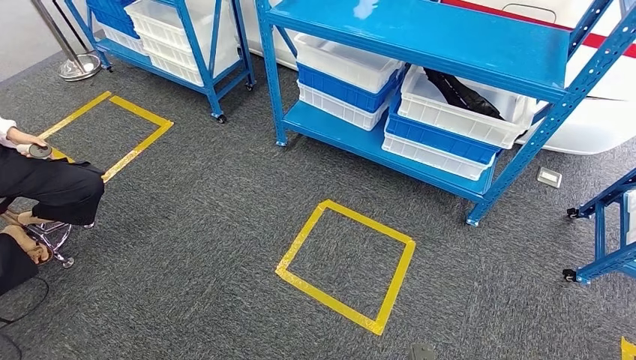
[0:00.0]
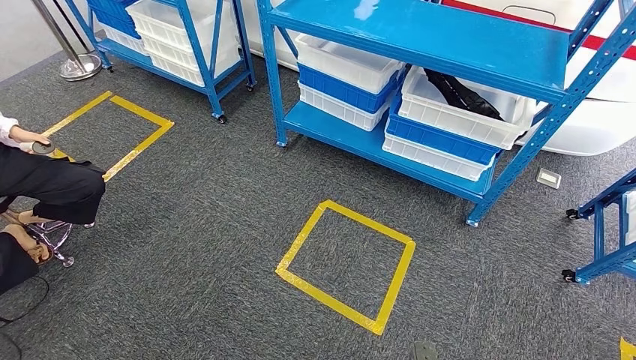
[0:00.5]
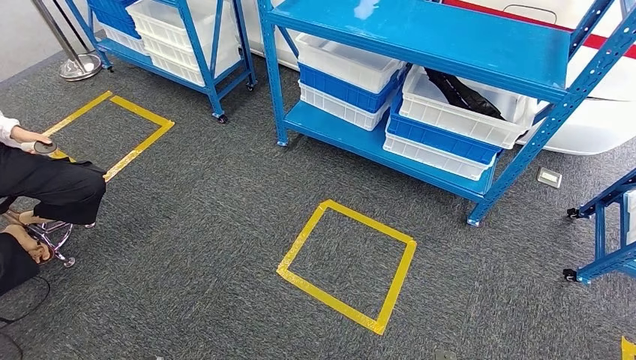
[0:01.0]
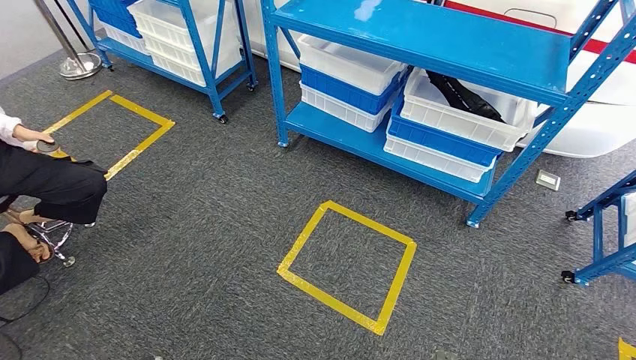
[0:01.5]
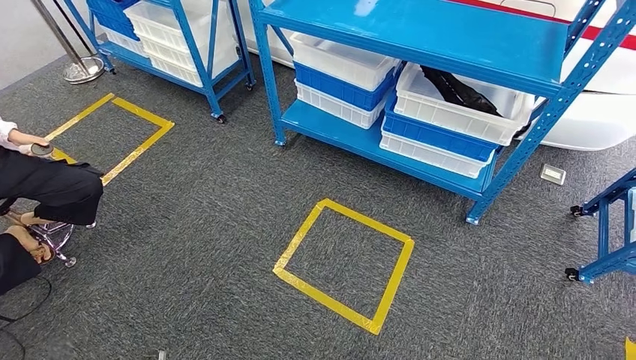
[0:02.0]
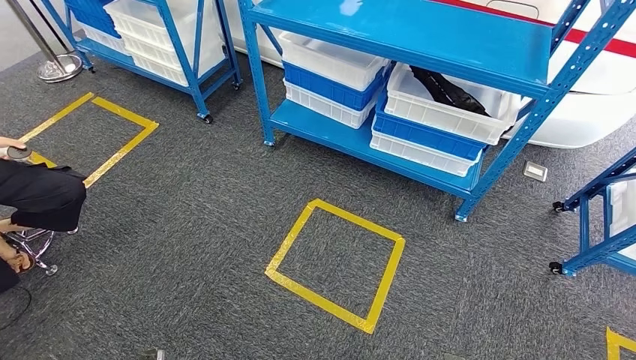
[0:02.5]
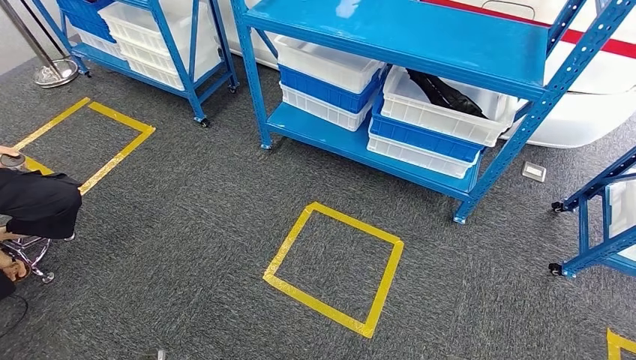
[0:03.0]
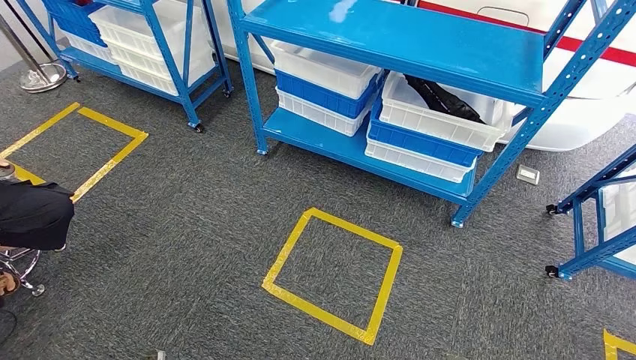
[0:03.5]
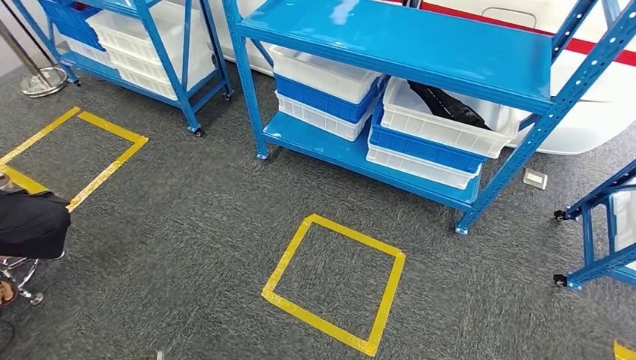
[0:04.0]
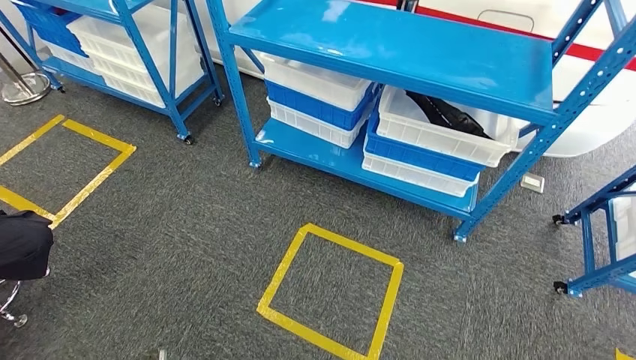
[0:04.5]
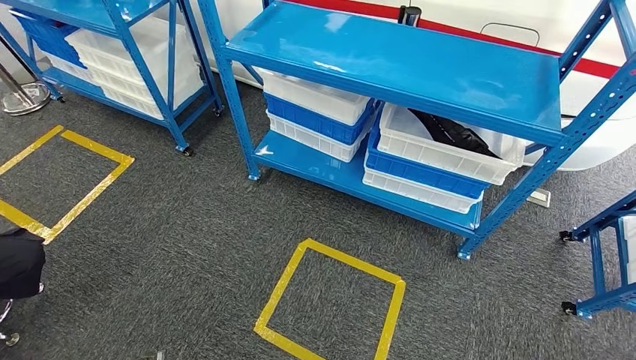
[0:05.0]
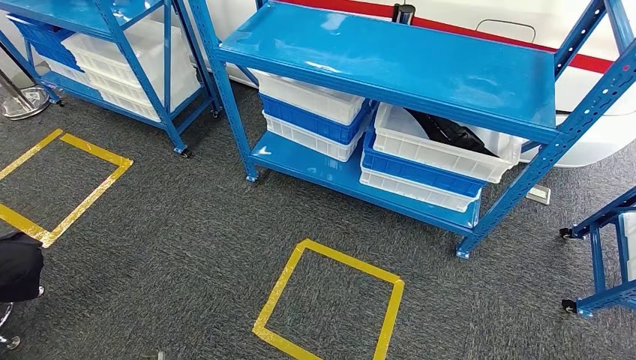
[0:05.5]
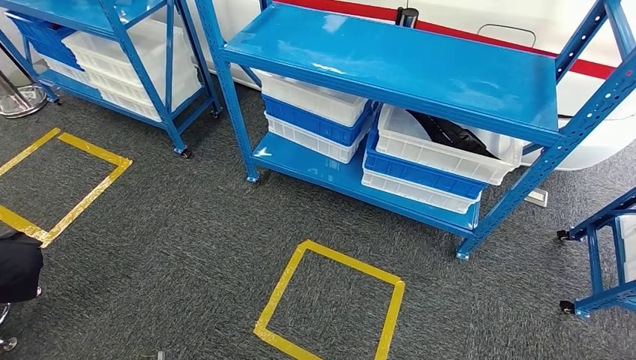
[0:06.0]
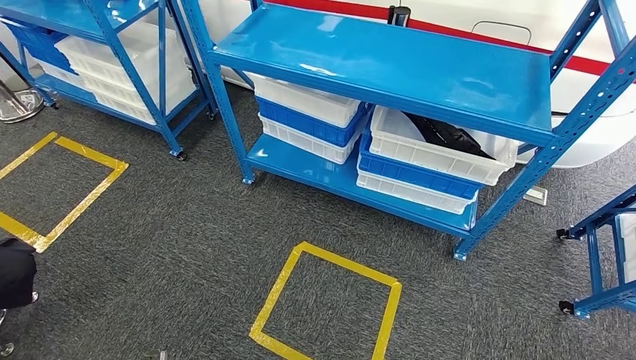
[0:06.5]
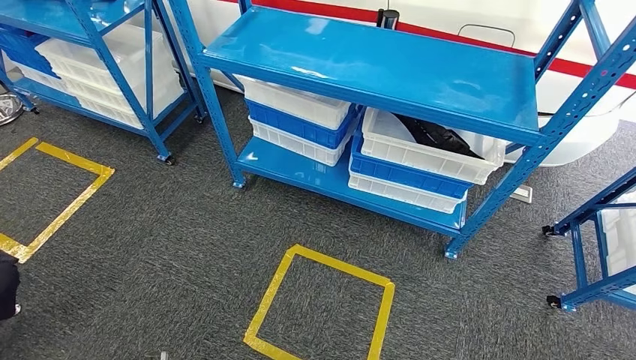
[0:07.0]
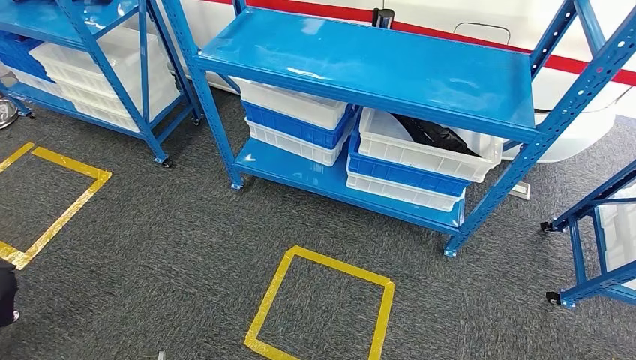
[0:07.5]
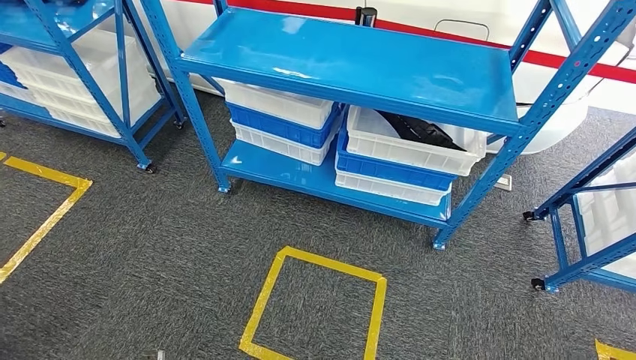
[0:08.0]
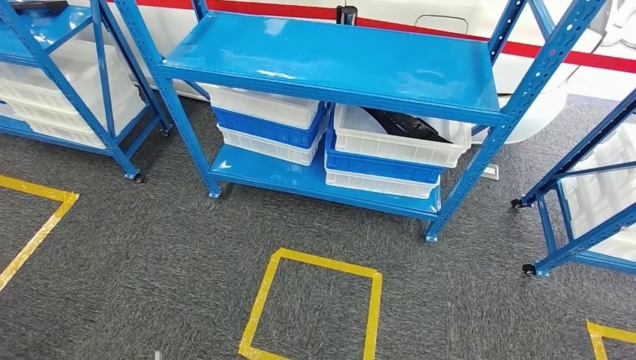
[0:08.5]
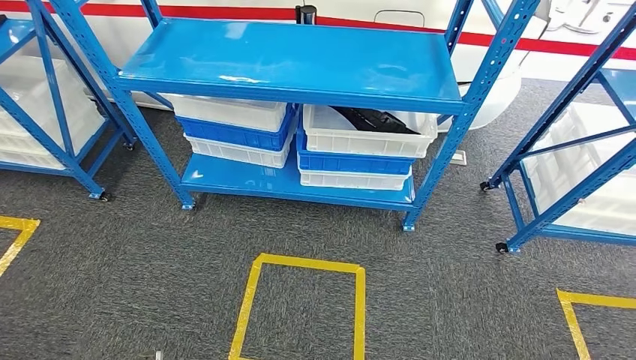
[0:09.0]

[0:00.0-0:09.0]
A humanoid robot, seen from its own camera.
0:00.0 to 0:02.0: The hands make only small movements.

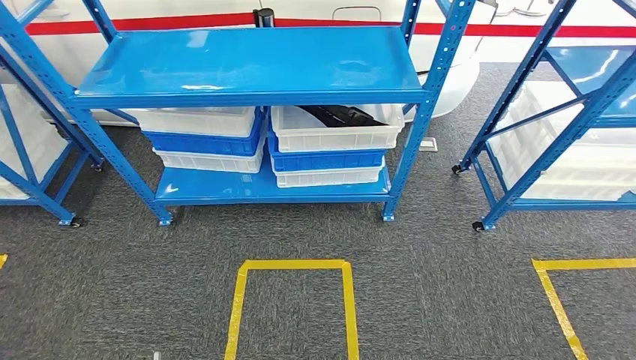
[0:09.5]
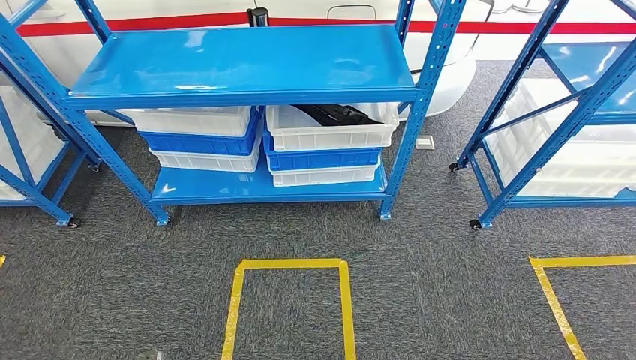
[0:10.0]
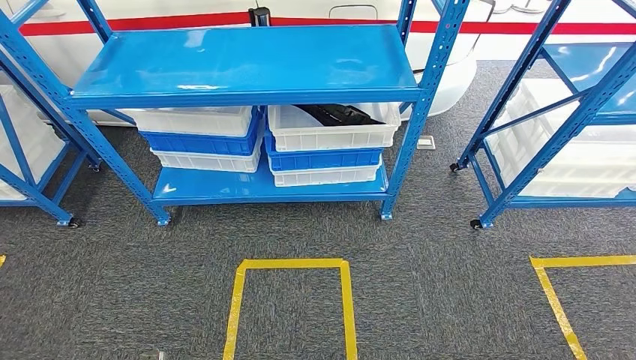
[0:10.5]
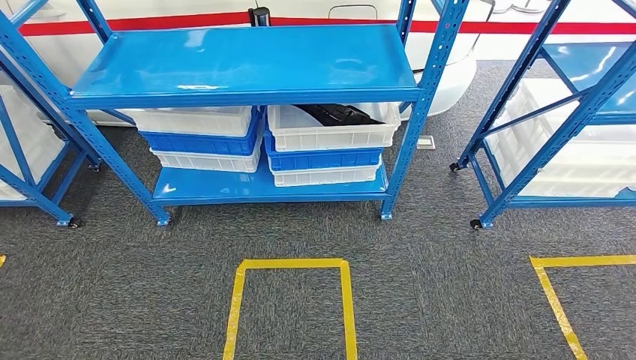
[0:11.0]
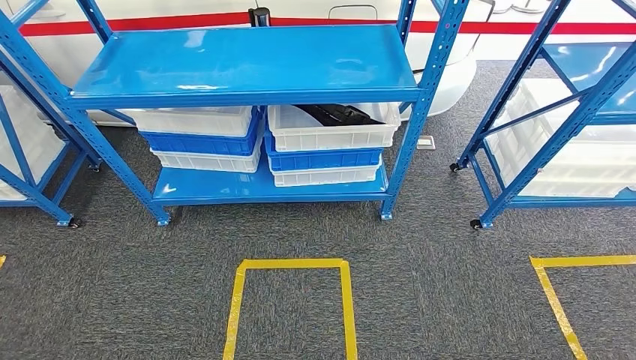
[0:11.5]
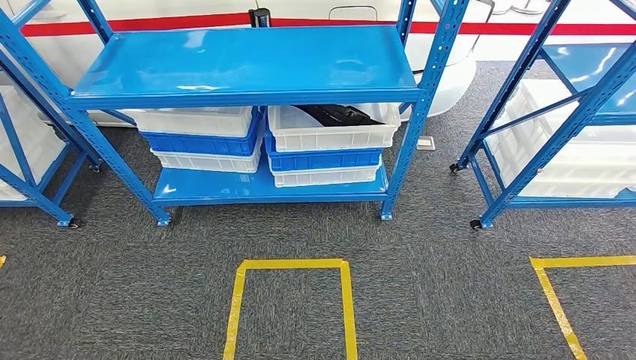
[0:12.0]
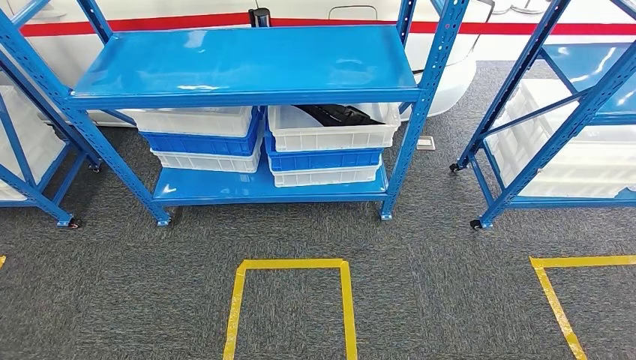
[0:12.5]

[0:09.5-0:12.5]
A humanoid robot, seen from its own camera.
Step, 0:09.5 to 0:12.5: Move to the initial position of the shelf.
0:09.5 to 0:11.0: The hands make only small movements.
